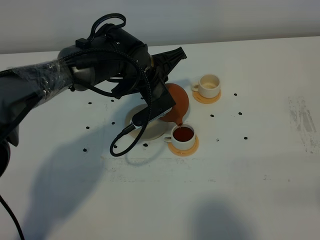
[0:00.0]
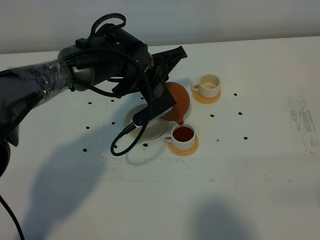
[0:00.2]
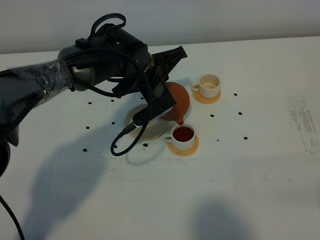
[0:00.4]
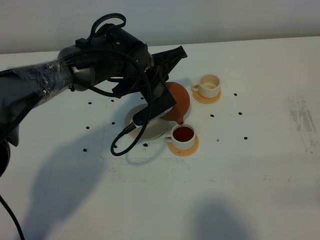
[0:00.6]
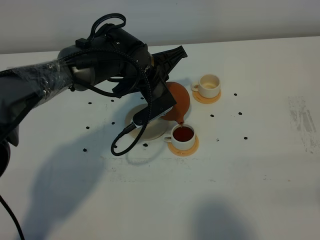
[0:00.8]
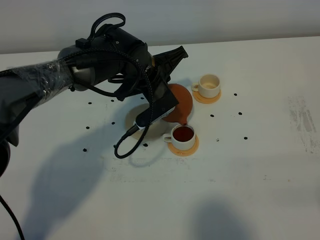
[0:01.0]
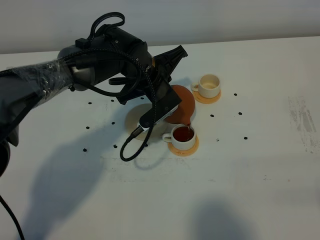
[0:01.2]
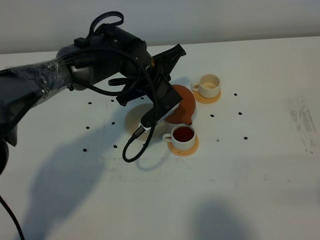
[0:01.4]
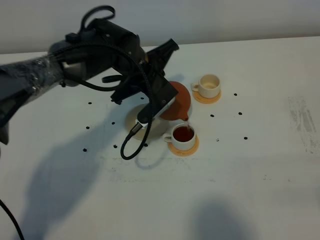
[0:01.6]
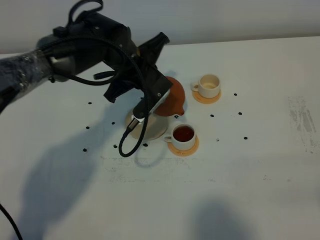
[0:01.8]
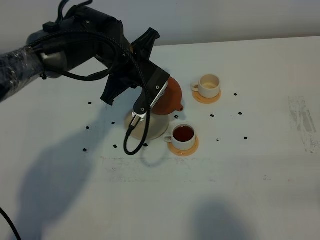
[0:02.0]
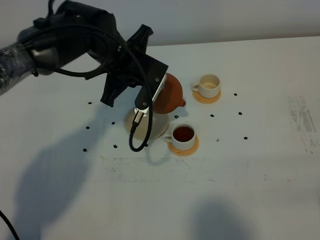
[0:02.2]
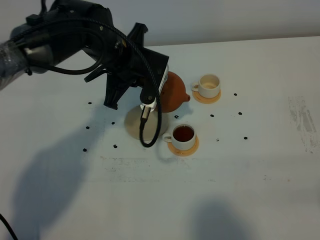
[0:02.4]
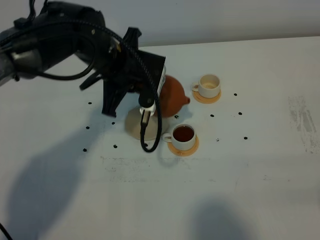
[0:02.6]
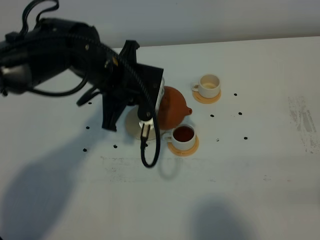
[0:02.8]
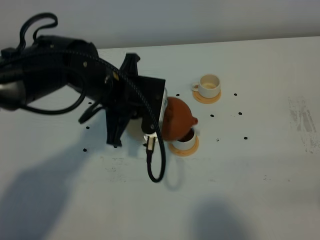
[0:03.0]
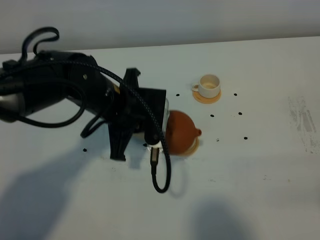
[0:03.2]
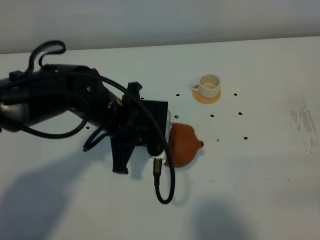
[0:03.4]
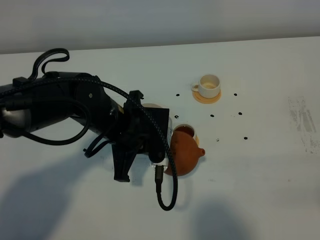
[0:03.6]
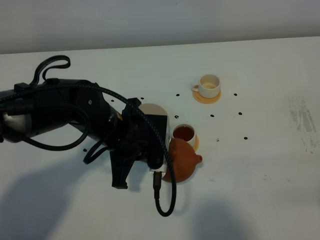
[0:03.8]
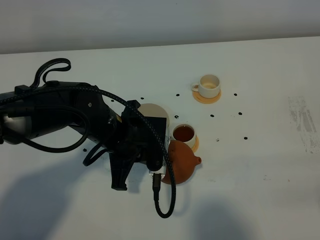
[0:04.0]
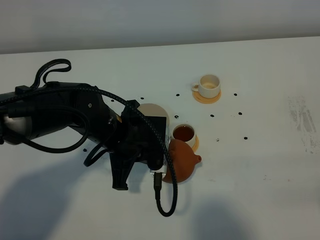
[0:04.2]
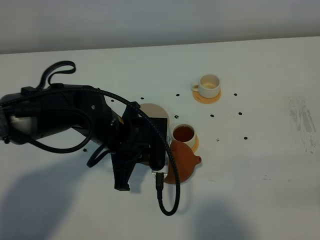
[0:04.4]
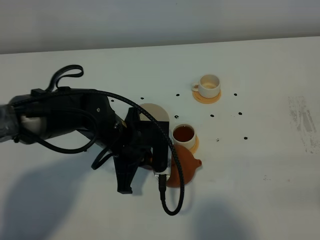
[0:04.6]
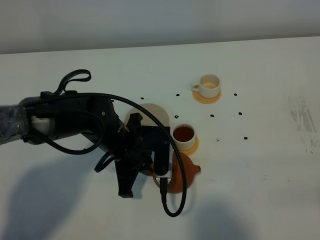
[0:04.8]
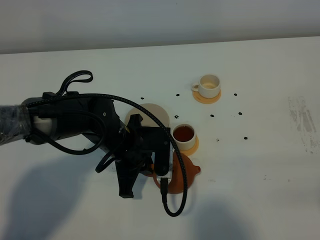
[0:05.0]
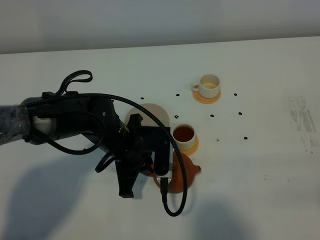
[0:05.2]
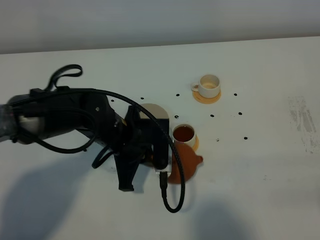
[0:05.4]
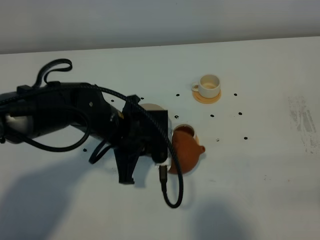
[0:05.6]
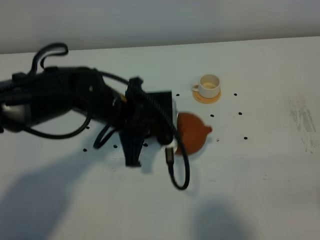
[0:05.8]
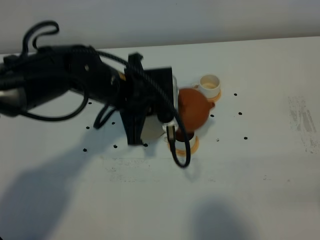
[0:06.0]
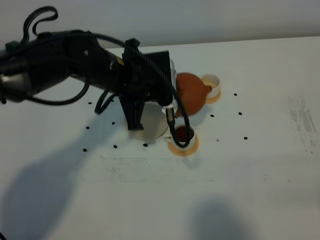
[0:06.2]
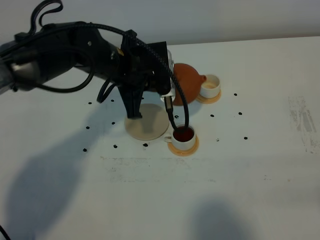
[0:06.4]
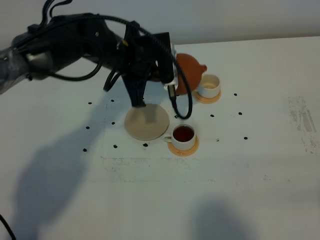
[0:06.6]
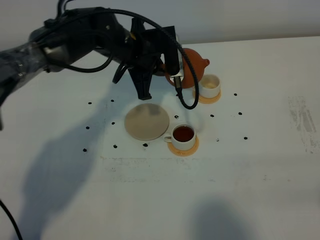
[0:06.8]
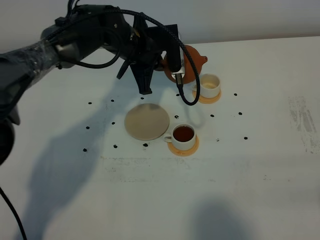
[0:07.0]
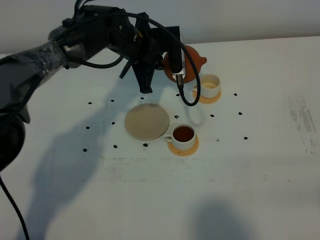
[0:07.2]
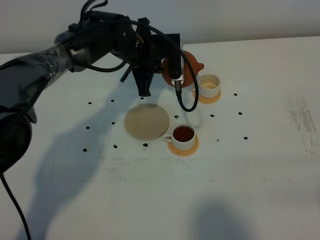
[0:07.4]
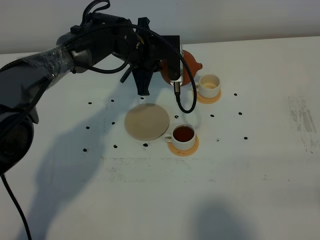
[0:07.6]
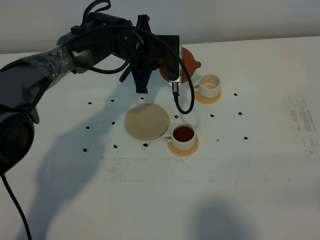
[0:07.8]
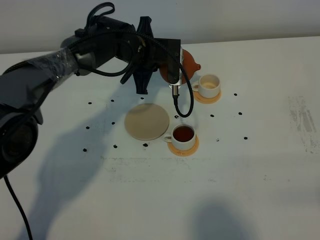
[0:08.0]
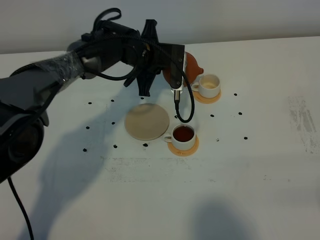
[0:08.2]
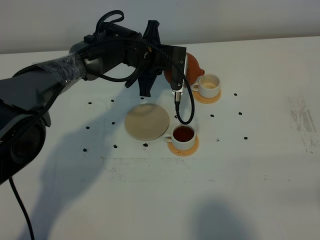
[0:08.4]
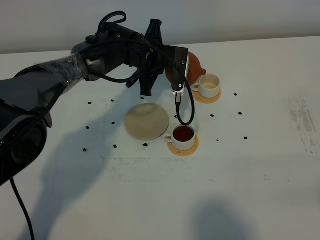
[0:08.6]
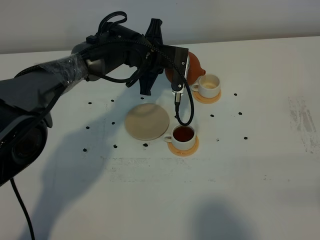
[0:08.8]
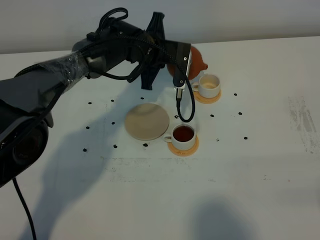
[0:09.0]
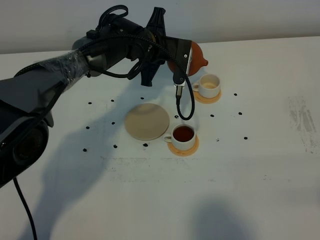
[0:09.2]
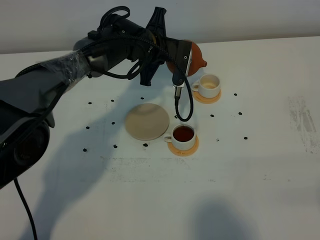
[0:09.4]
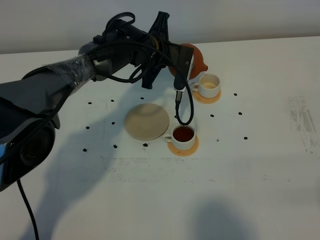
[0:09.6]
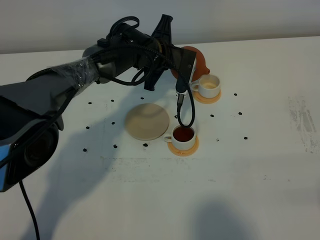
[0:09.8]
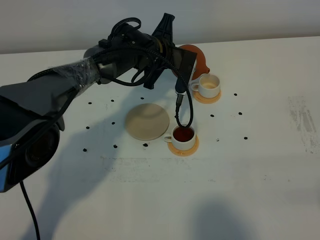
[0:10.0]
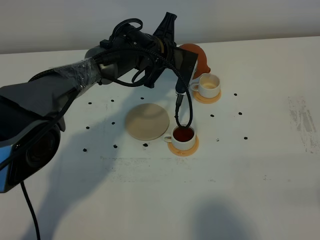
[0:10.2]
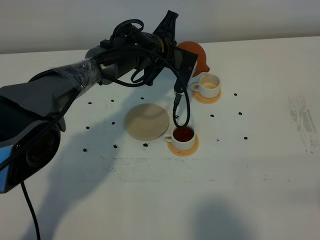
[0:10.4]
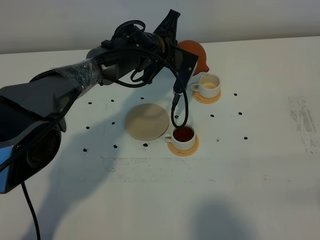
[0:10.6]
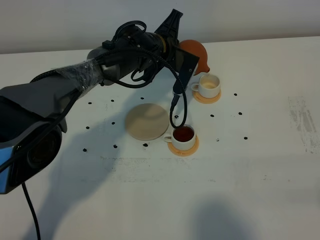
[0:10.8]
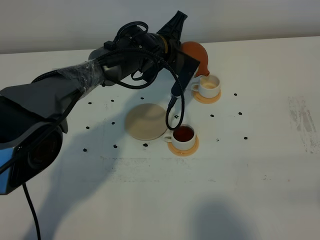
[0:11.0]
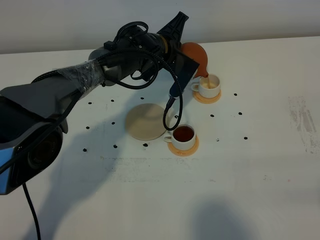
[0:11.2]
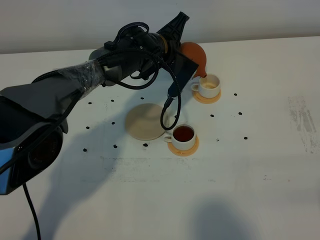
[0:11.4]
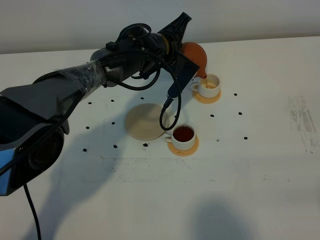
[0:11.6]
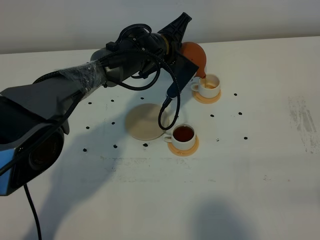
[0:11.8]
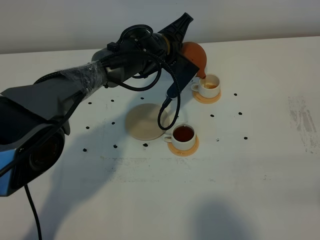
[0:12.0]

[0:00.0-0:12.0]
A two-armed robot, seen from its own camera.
Task of the whole recording: grasp the brown teapot and pour the tea into the two white teacups one by one, put the brown teapot back in its original place.
0:00.0 to 0:01.6: The grippers stay close to where they were, moving slightly.
0:01.6 to 0:03.0: The left gripper shifts some 10 cm backward.
0:03.0 to 0:04.4: The left gripper moves downward, approximately 5 cm.
0:04.4 to 0:06.0: The left gripper travels upward by approximately 5 cm.
0:06.0 to 0:07.6: The left gripper travels forward by roughly 15 cm.
0:07.6 to 0:09.0: There are only small adjustments of the grippers.
0:09.0 to 0:10.4: There are only small adjustments of the grippers.
0:10.4 to 0:12.0: The grippers move only a little.

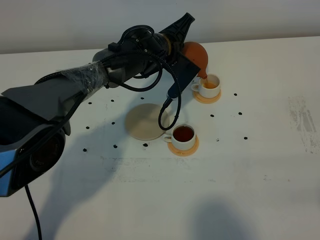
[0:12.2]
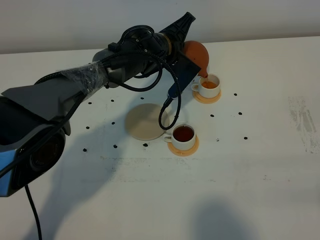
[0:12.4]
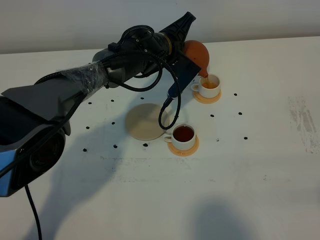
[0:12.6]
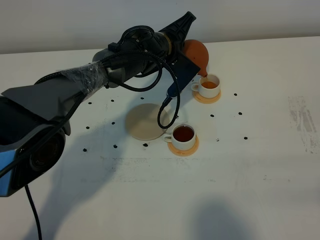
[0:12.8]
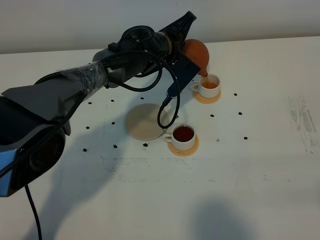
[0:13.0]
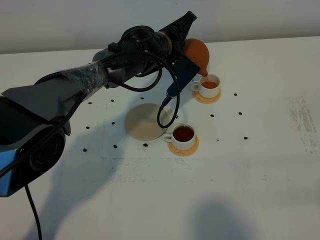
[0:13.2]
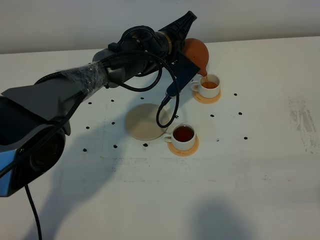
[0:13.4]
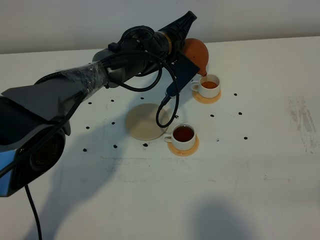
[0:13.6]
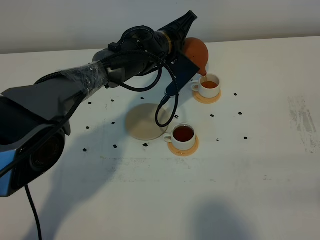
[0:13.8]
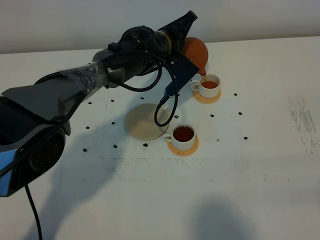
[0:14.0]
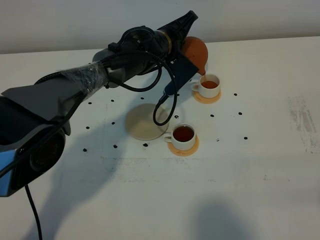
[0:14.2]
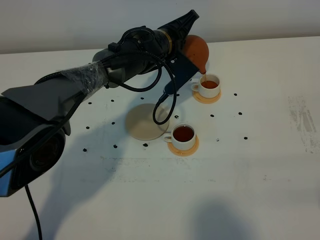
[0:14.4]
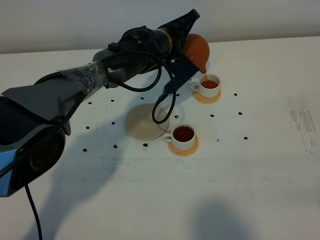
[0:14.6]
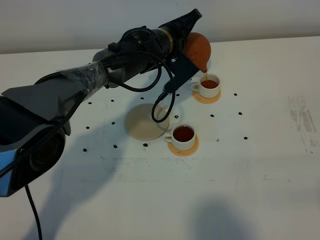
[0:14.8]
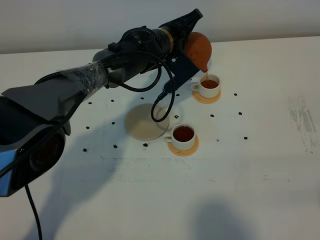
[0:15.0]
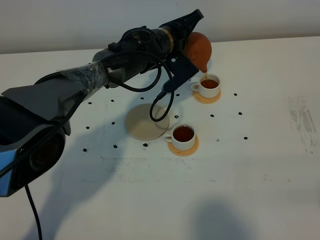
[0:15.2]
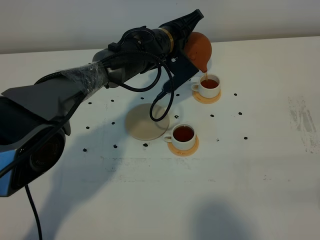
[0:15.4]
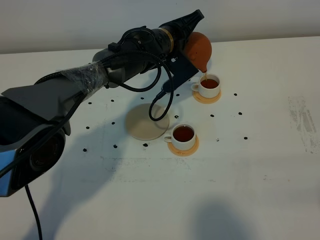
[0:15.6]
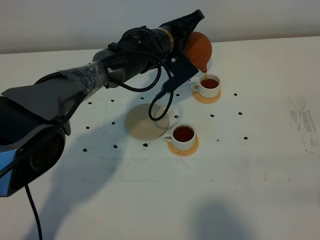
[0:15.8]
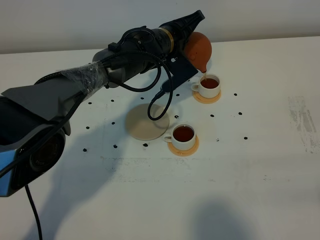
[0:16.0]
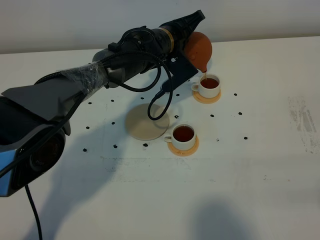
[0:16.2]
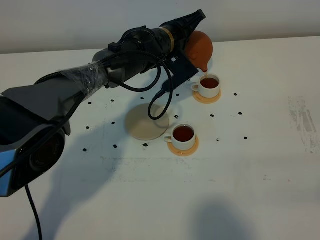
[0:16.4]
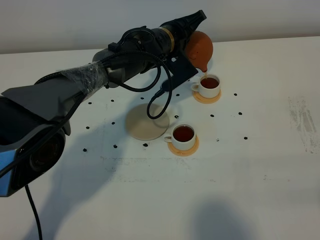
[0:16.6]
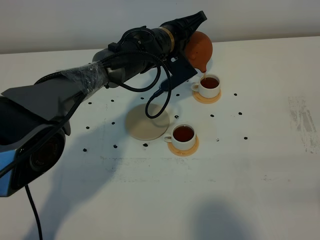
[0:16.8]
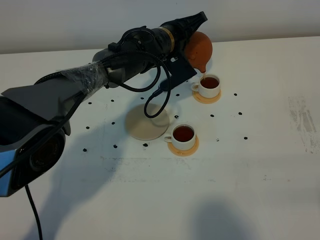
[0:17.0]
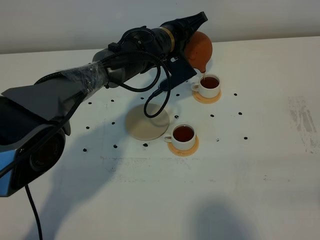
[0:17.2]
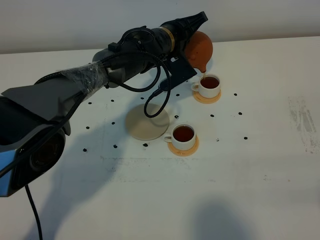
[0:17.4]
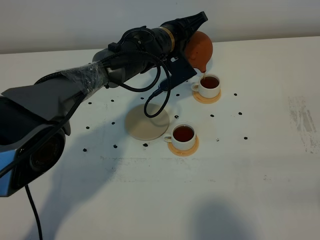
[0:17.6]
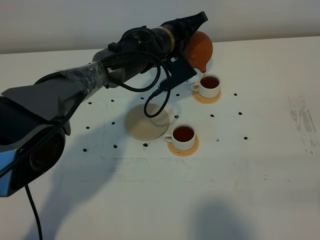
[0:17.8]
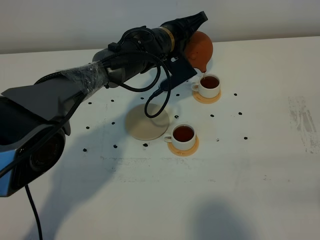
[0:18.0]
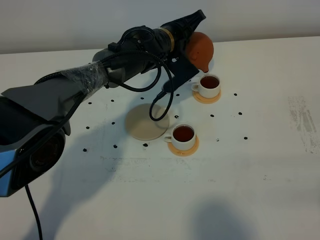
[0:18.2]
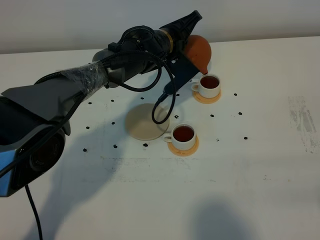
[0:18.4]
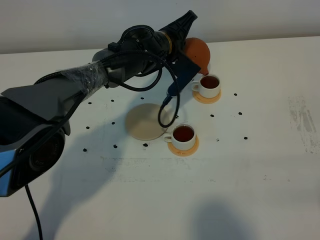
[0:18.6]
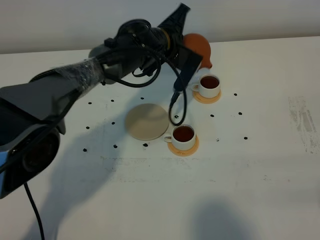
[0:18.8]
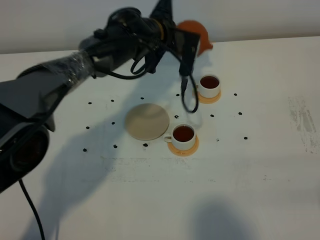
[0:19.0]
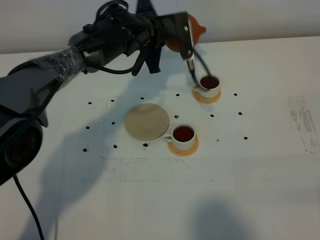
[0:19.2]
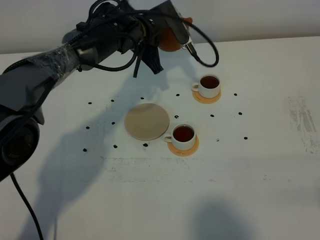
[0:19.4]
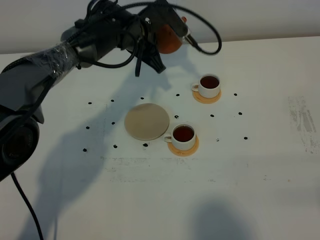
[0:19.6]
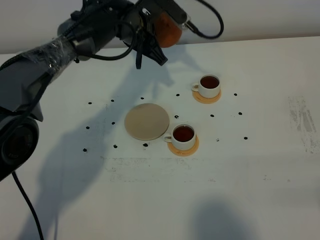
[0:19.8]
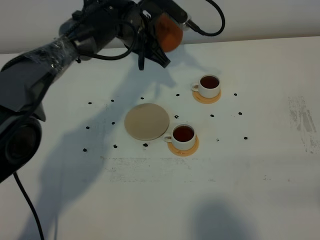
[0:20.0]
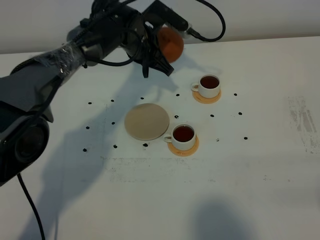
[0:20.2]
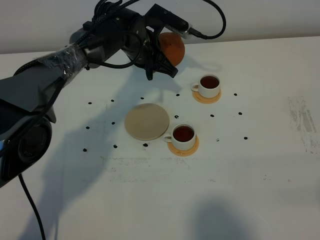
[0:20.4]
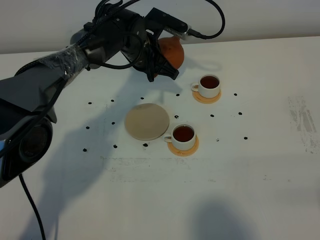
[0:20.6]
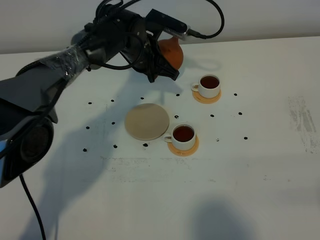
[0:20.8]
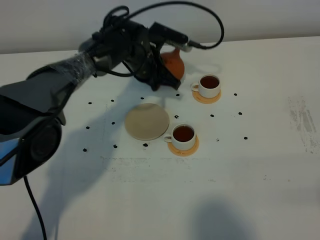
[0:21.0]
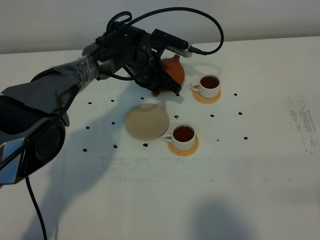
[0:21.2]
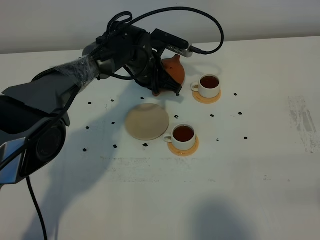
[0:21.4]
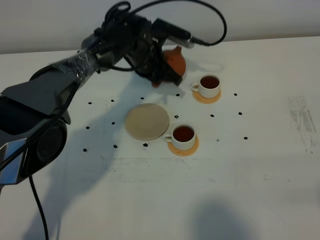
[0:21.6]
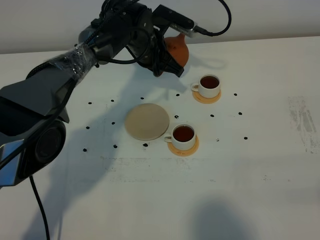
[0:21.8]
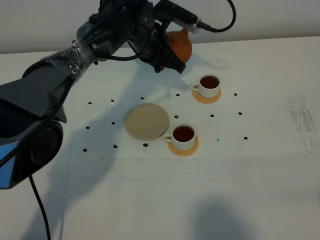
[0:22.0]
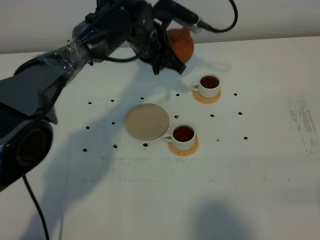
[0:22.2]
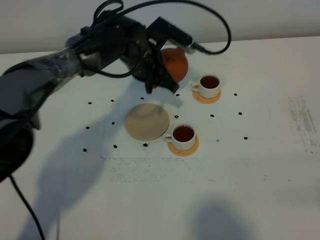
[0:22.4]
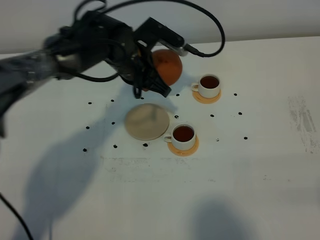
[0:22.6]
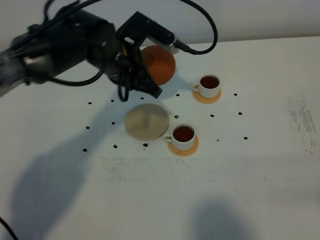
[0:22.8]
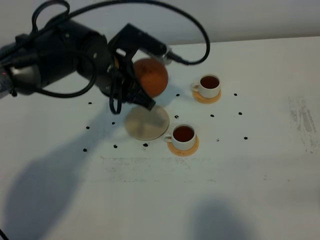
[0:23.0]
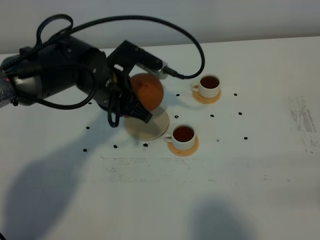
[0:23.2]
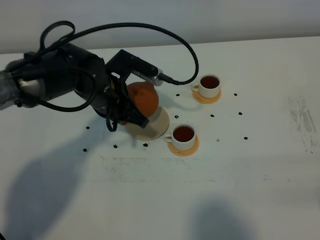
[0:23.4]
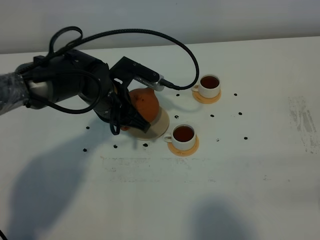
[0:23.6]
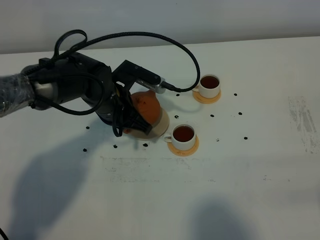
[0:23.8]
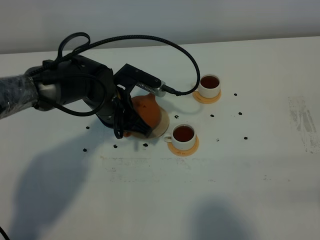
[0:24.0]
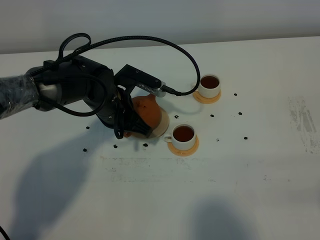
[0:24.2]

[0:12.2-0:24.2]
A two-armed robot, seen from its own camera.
Task of the whole recording: grasp the brown teapot and pour the tea into the two white teacups one by one, put the brown teapot back in its original place.
Step, 0:12.2 to 0:18.8: Pour tea into the teacup with the left gripper.
0:12.2 to 0:13.8: Neither gripper changes place.
0:13.8 to 0:15.2: The grippers make only small movements.
0:15.2 to 0:16.6: Both grippers stay about where they are.
0:16.6 to 0:18.2: Both grippers stay put.
0:18.2 to 0:19.8: The left gripper heads to the left, covering some 5 cm.
0:19.8 to 0:21.2: The left gripper goes some 10 cm downward.
0:21.2 to 0:22.6: The left gripper moves upward and backward, some 10 cm.
0:22.6 to 0:24.2: The left gripper is displaced downward by roughly 5 cm.
